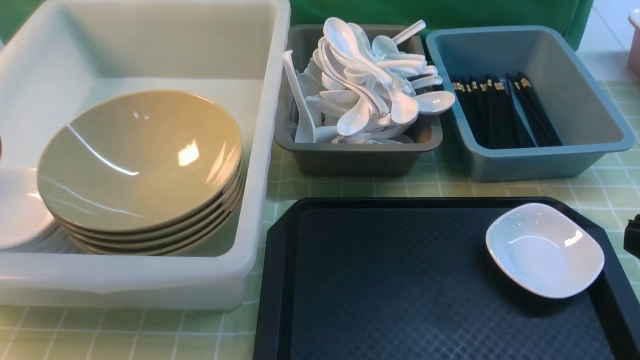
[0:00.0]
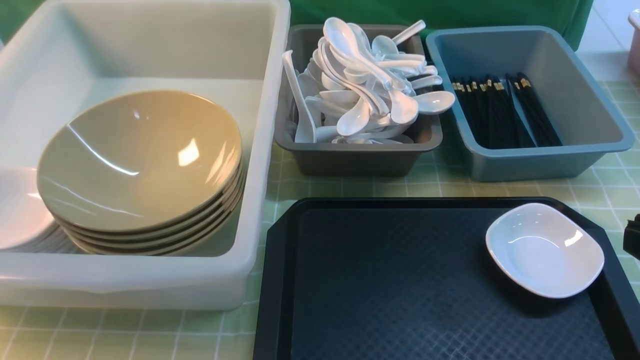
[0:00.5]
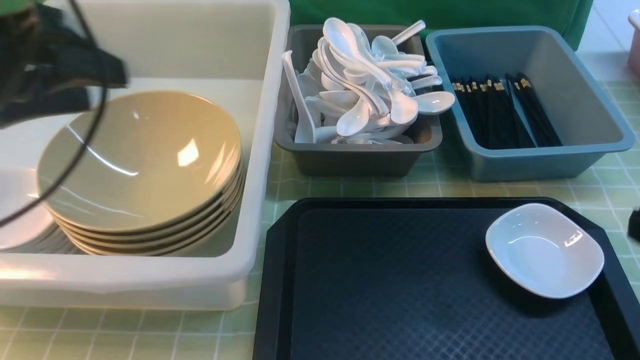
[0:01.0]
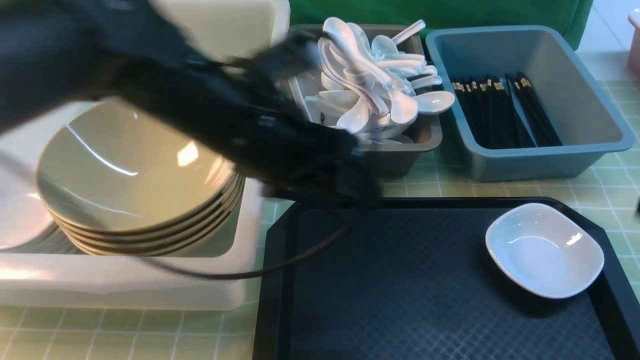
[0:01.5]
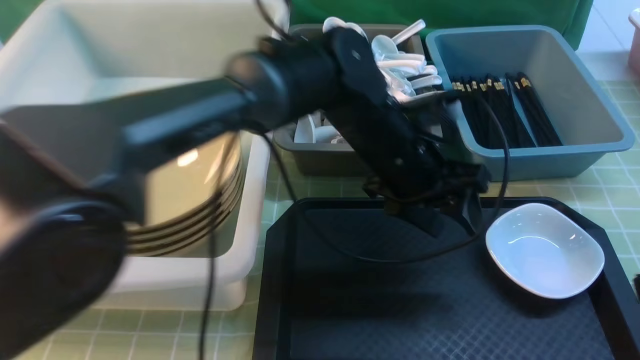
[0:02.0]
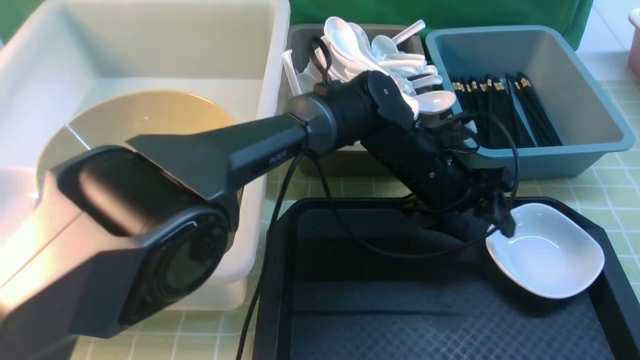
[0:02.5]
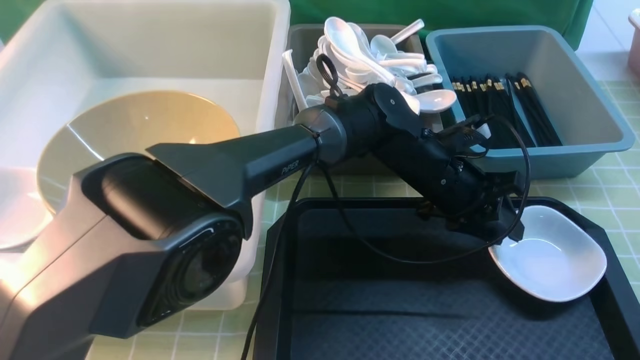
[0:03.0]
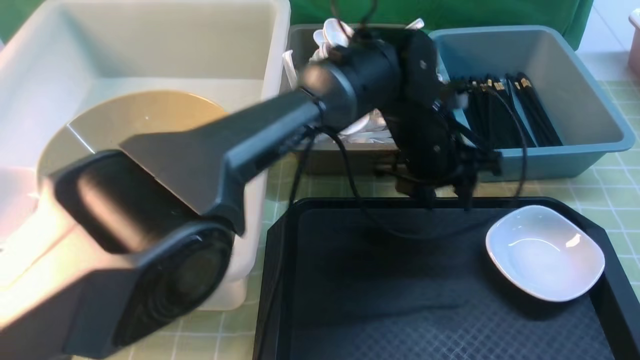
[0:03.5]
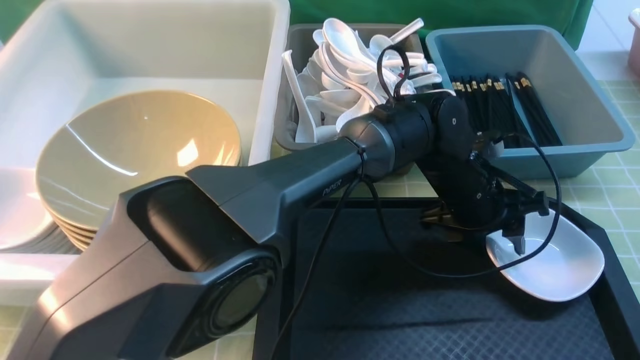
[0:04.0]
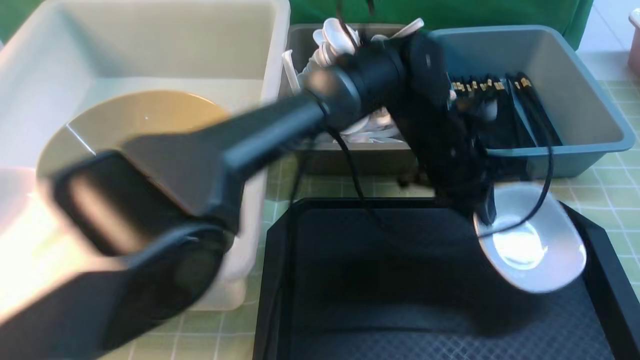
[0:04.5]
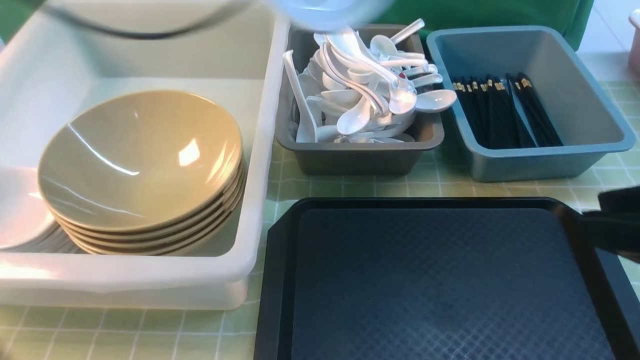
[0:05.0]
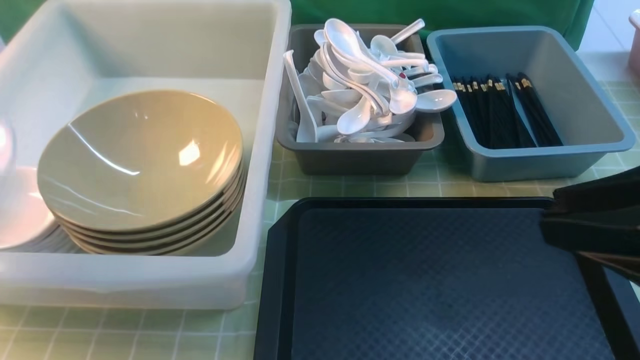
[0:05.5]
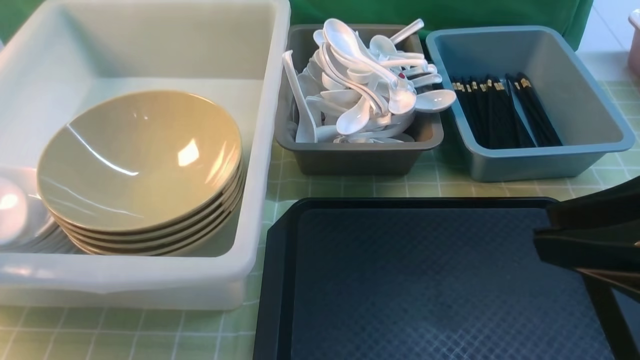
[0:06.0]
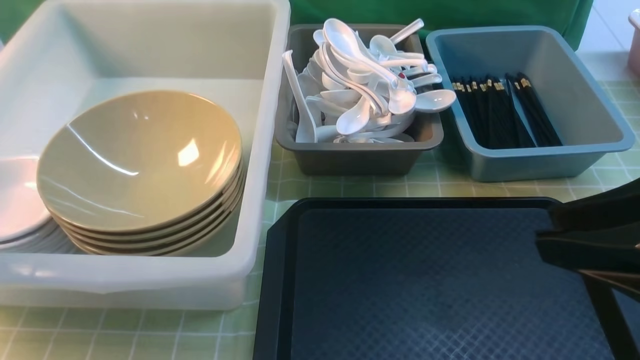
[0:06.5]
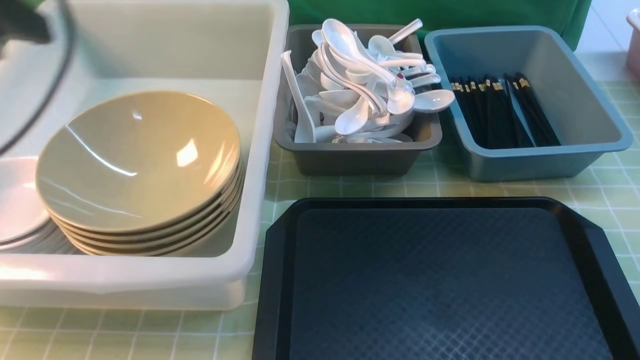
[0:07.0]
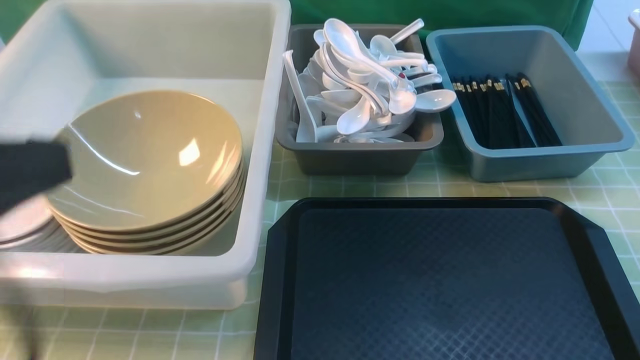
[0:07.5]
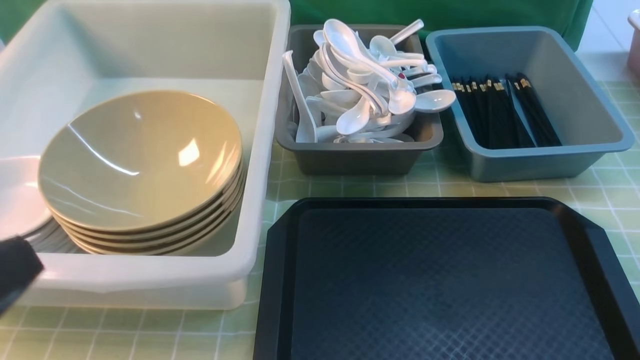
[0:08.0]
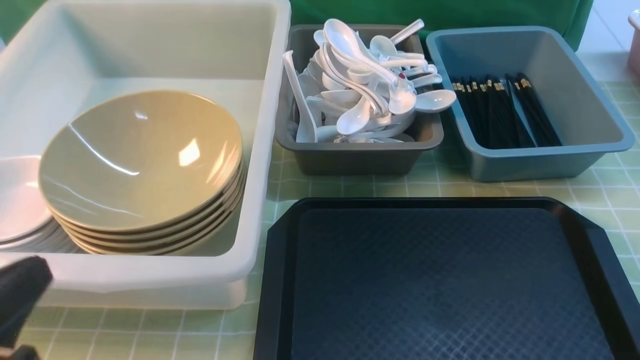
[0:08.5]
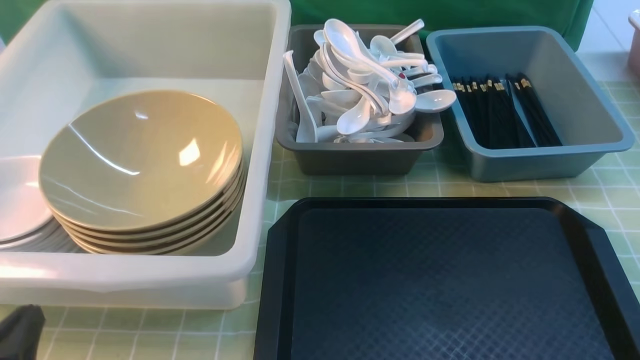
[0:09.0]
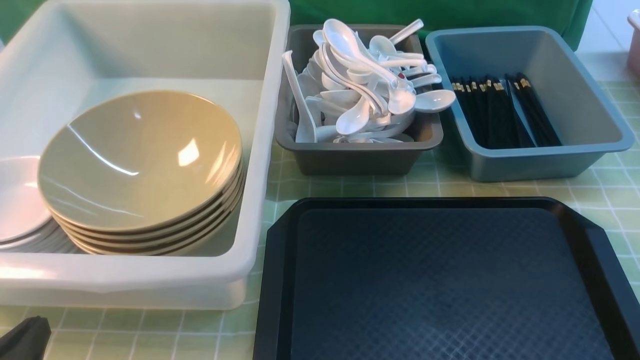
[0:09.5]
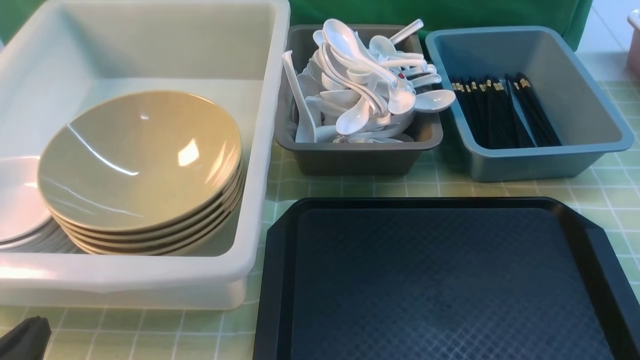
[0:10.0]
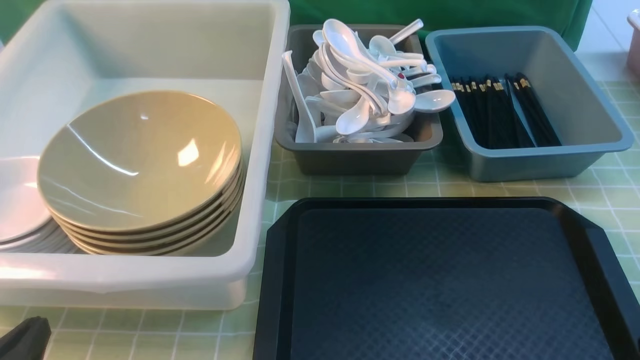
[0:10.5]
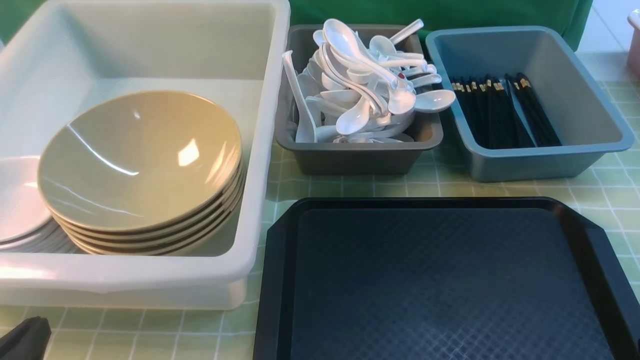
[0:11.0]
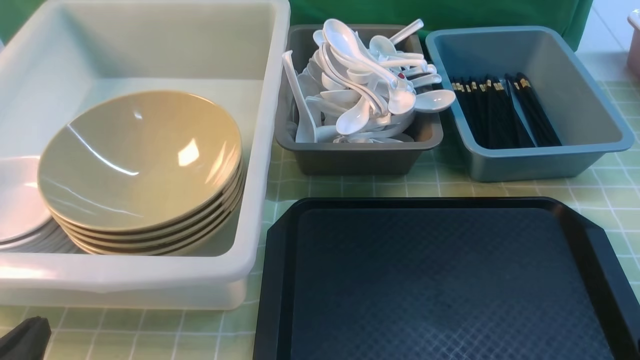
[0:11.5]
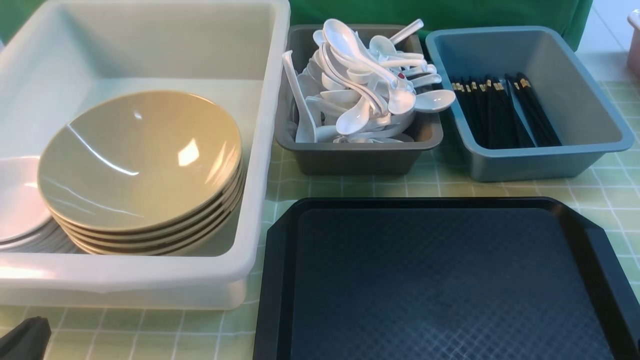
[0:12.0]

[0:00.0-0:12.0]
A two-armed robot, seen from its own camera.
Task of the whole recording: on green table put chopsticks spoon bowls plates into blue grey white boxes.
Step, 0:00.0 to 0:04.0: use the left arm to grab the plate.
Step, 0:04.5 to 0:06.5: use the left arm to put the plate into the large storage box on the left.
0:00.0 to 0:02.0: The left gripper shifts about 50 cm to the right.
0:02.0 to 0:04.0: The left gripper heads to the right and downward, covering approximately 10 cm.
0:04.0 to 0:06.0: The left gripper travels to the left by some 50 cm, and closes. Meanwhile the right gripper is displaced to the left by about 5 cm.
0:06.0 to 0:08.0: The right gripper travels downward, backward and to the right by some 15 cm; the left gripper heads backward and to the right, covering approximately 25 cm, and opens, then closes once more.
0:08.0 to 0:10.0: The left gripper moves downward, about 15 cm.
